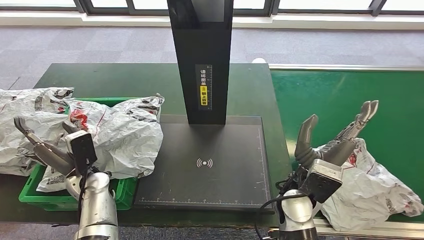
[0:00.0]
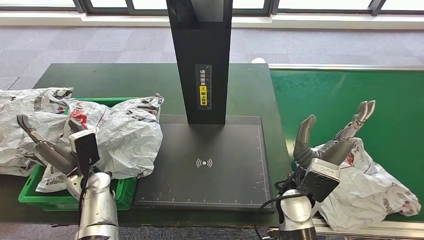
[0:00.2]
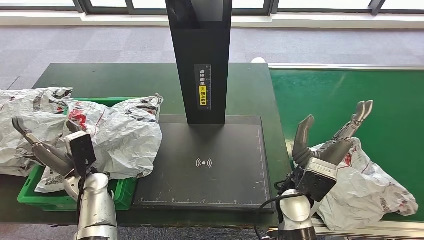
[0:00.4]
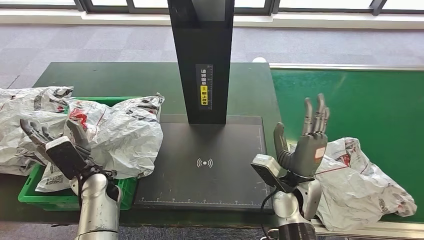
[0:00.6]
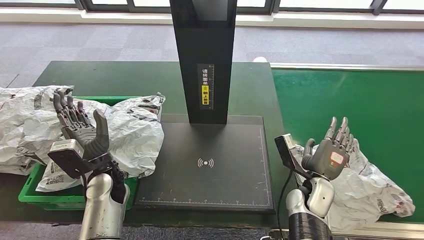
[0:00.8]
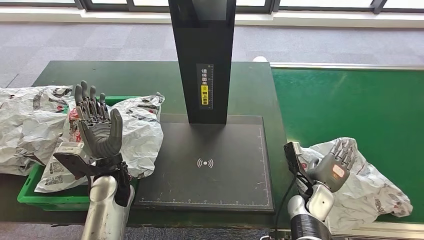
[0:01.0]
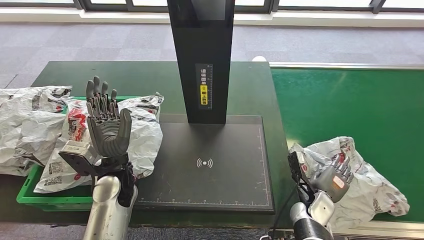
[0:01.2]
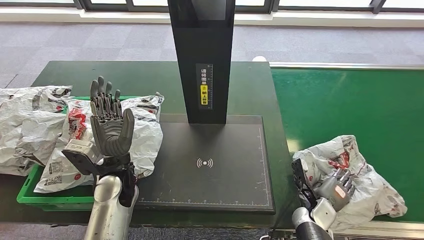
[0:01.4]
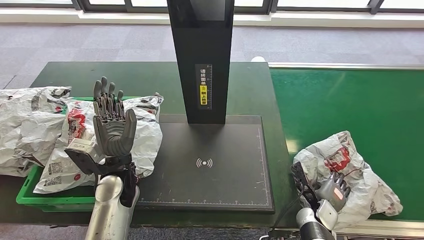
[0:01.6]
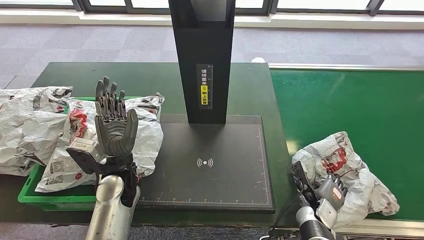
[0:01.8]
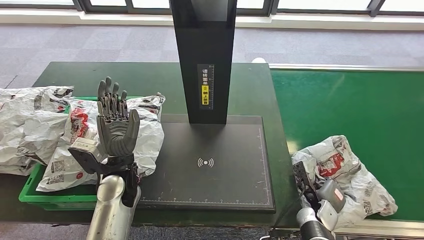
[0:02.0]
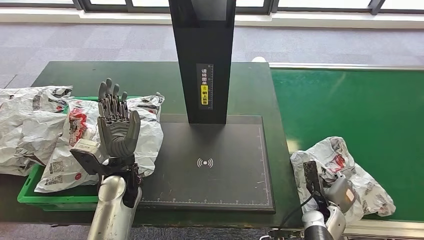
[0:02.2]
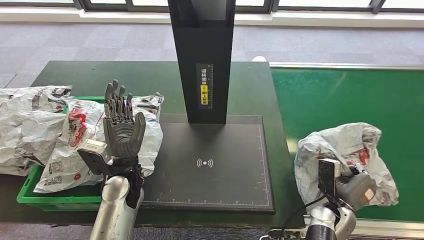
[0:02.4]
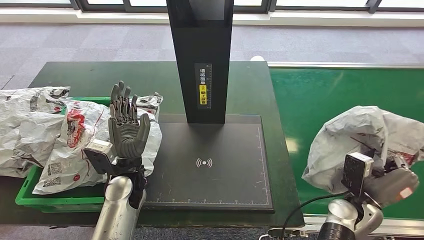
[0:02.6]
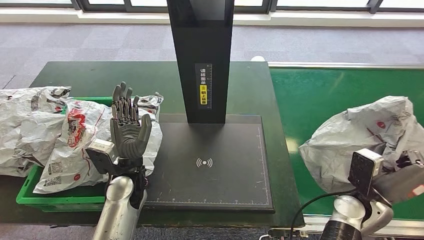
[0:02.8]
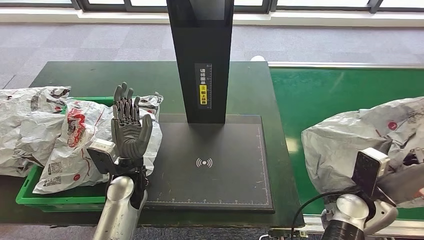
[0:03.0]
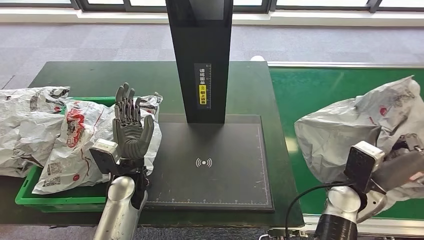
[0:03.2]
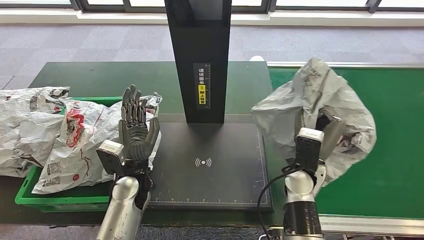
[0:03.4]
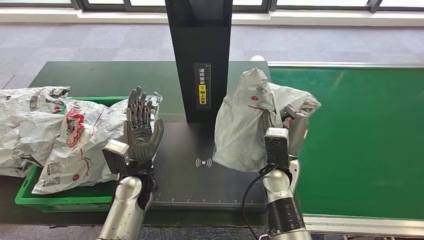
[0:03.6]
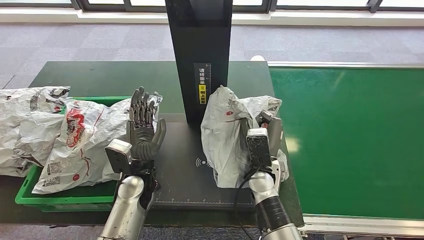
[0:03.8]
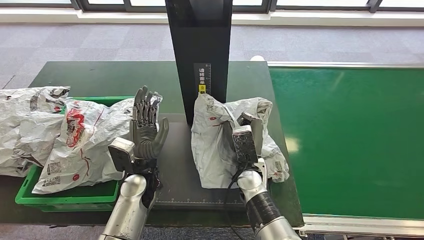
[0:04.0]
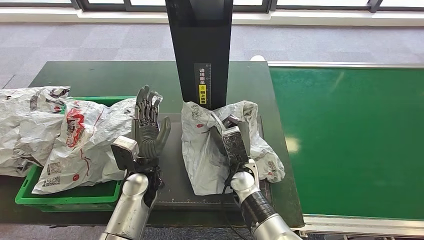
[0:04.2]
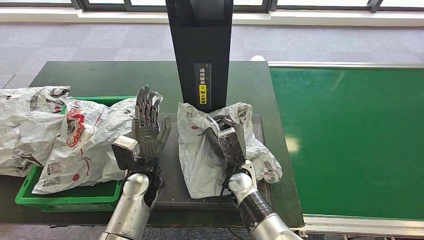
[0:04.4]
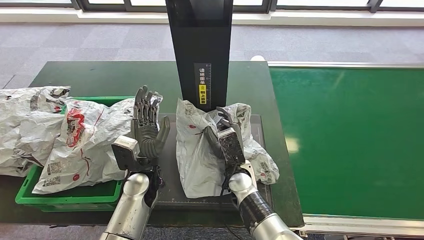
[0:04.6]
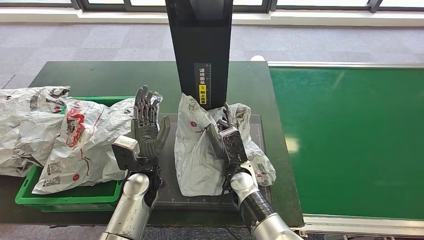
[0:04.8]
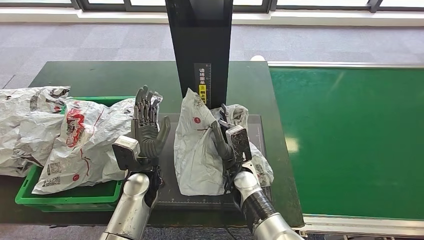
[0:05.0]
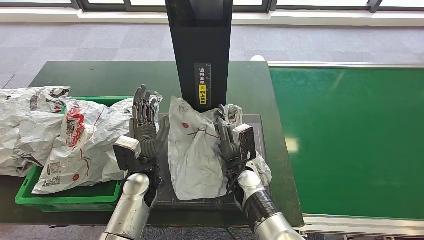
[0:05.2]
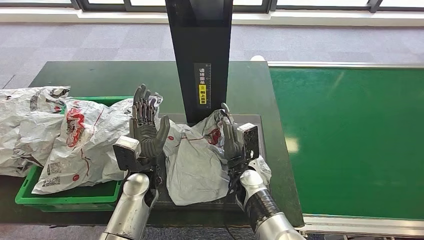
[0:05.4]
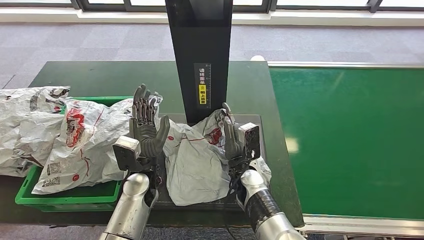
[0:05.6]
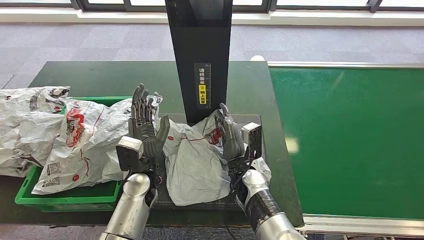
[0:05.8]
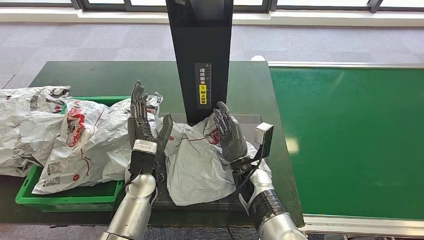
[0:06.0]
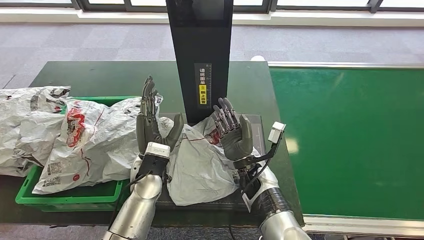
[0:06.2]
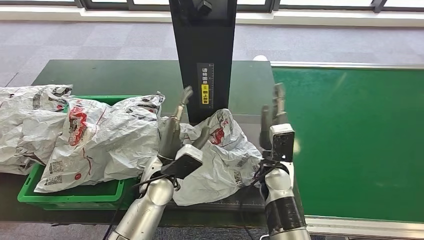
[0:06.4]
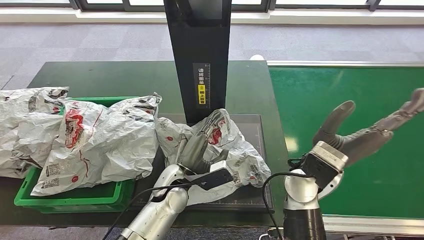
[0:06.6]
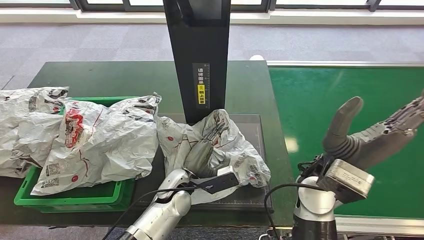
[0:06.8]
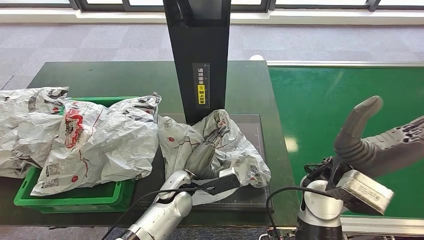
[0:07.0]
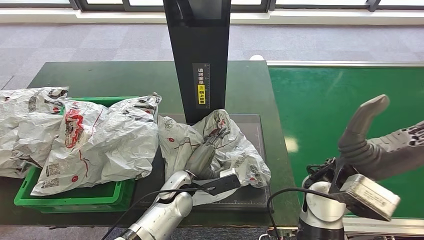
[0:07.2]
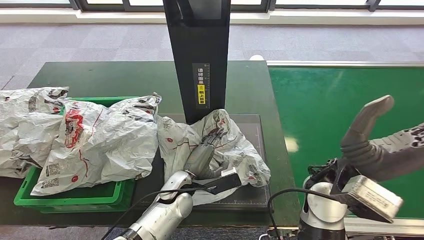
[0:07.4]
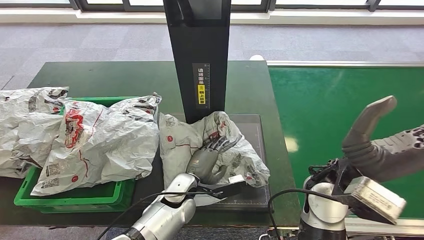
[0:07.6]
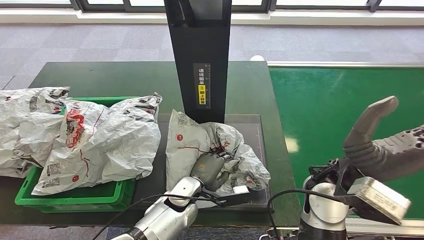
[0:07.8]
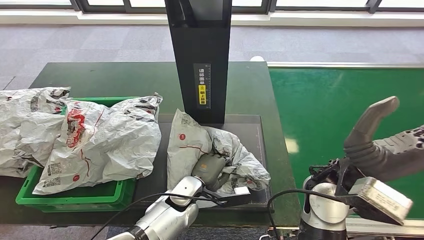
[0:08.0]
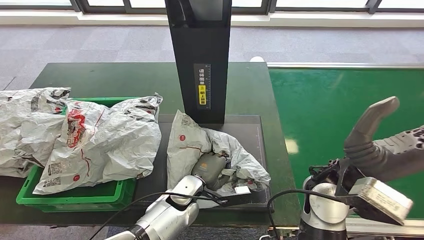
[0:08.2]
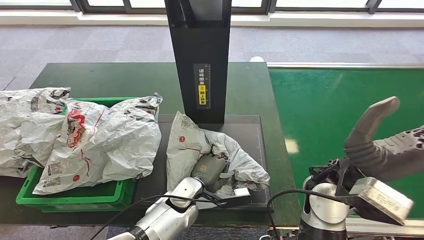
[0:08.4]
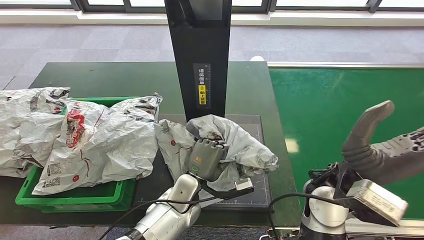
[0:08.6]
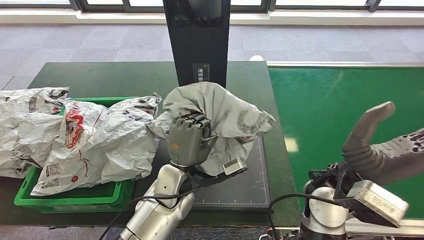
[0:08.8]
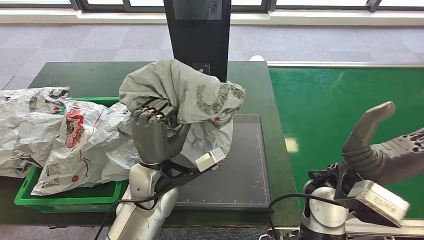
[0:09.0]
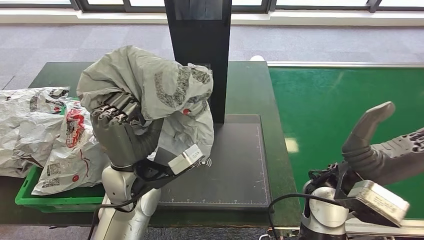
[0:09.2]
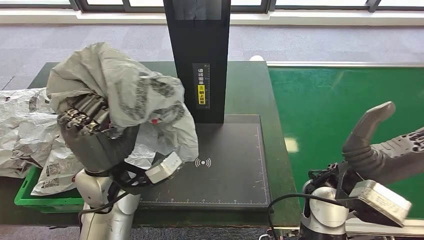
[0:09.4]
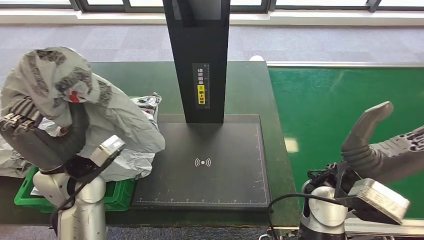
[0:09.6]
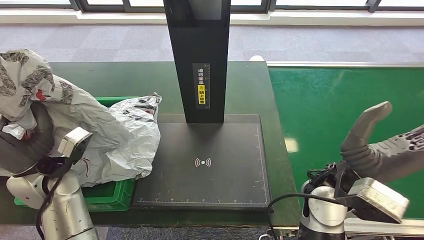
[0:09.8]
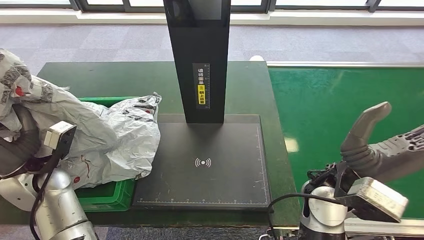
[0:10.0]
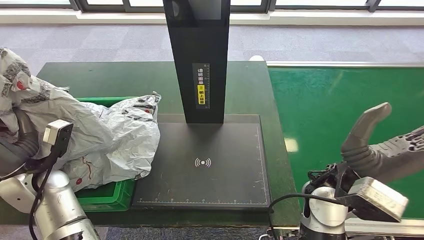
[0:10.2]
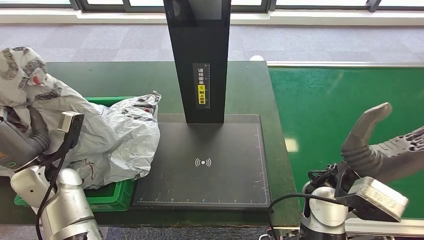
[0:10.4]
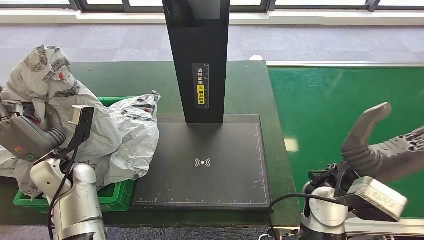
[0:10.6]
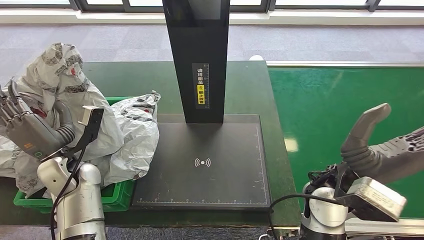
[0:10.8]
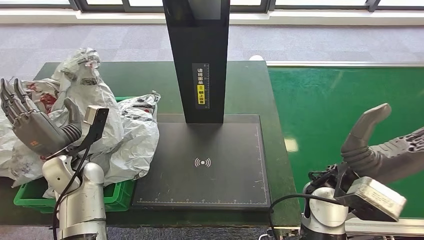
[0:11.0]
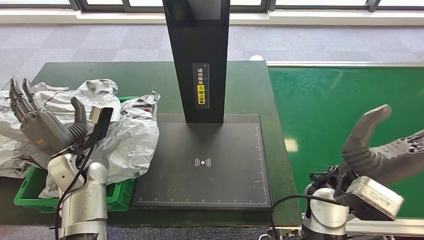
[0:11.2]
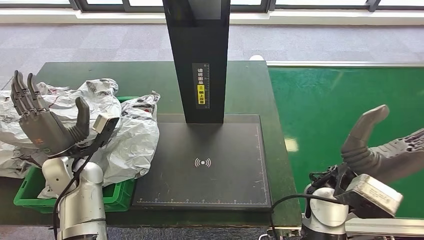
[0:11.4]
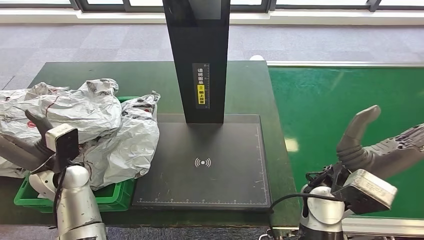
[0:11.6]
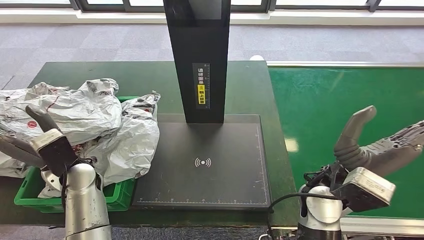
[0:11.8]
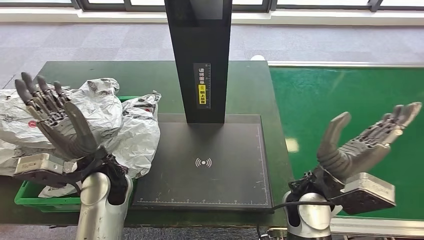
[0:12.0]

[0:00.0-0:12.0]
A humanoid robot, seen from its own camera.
Step, 0:00.0 to 0:02.4: Place the parcel into the delivery box.
Step, 0:02.6 to 0:03.4: Pick up the parcel from the conveyor belt.
Step, 0:03.6 to 0:06.4: Place the parcel onto the inbound machine.
Step, 0:06.8 to 0:09.0: Pick up the parcel from the inbound machine.

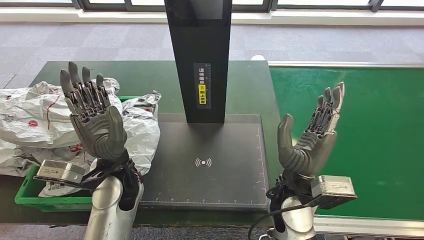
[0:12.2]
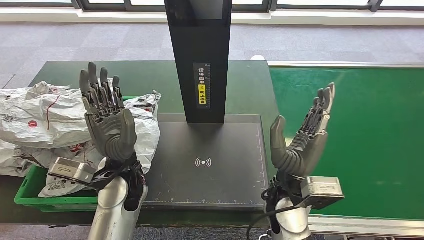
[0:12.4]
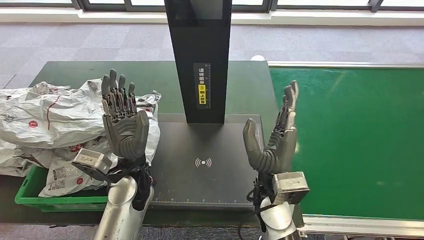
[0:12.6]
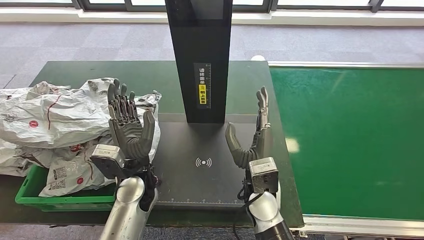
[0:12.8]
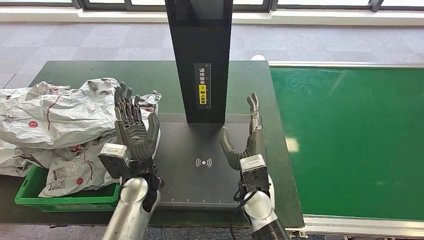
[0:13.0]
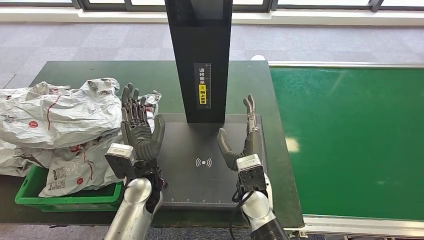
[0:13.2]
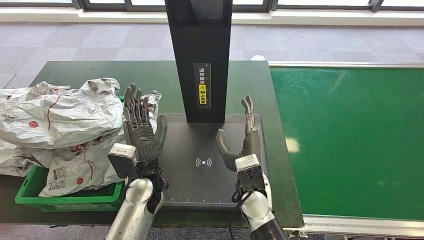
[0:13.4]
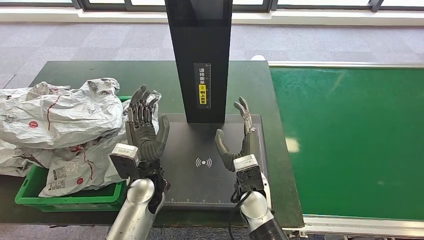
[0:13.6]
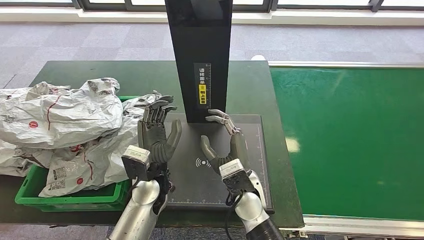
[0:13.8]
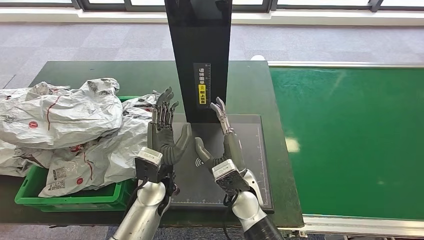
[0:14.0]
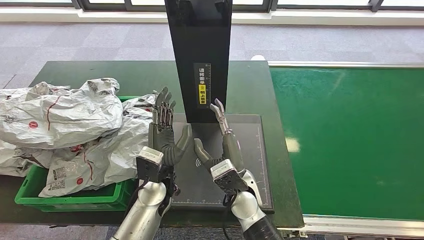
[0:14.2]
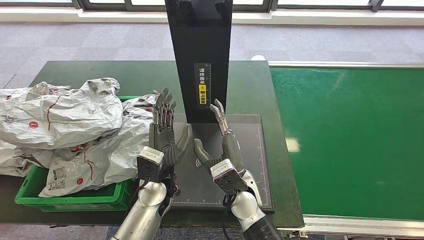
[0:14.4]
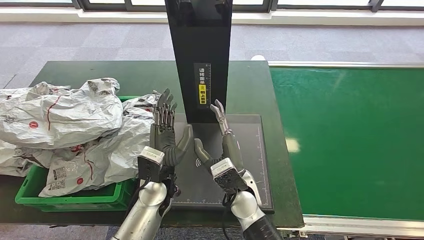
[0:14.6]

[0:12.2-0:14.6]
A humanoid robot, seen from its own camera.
Step, 0:12.2 to 0:14.6: Place the parcel into the delivery box.
0:12.2 to 0:13.4: The left hand moves downward, about 5 cm. The right hand is displaced downward and to the left by roughly 10 cm.
0:13.4 to 0:14.6: The hands make only small movements.
